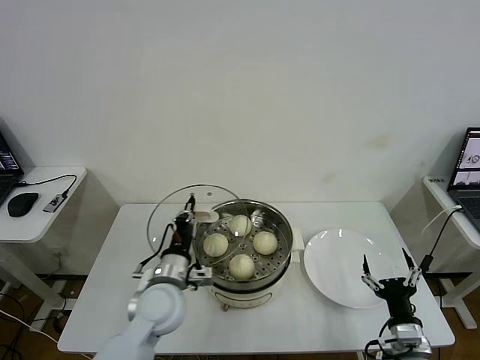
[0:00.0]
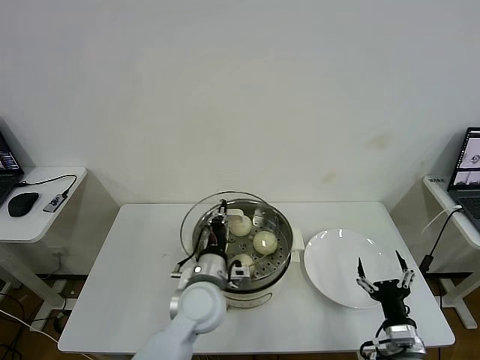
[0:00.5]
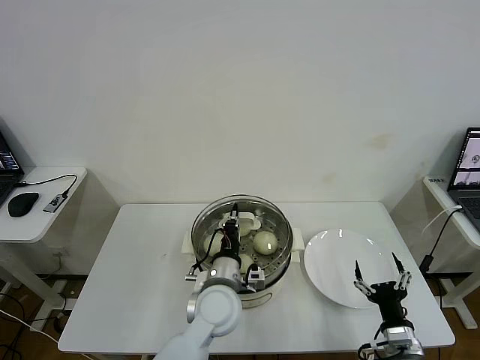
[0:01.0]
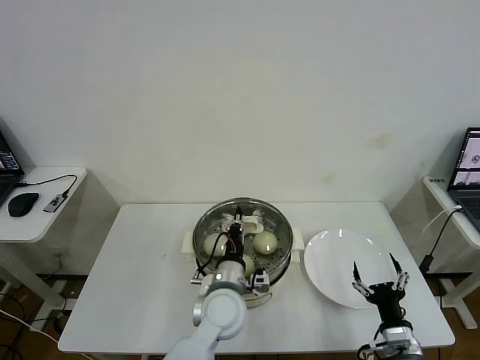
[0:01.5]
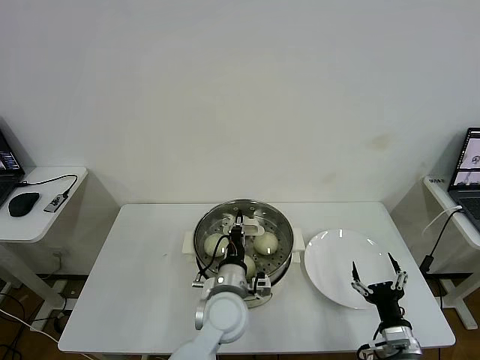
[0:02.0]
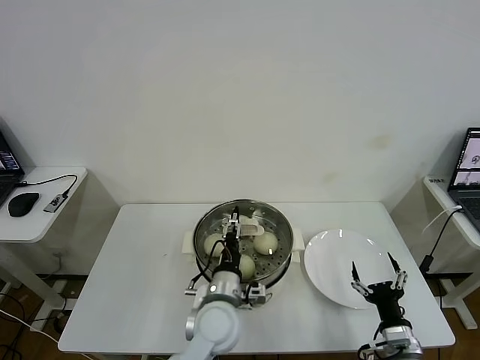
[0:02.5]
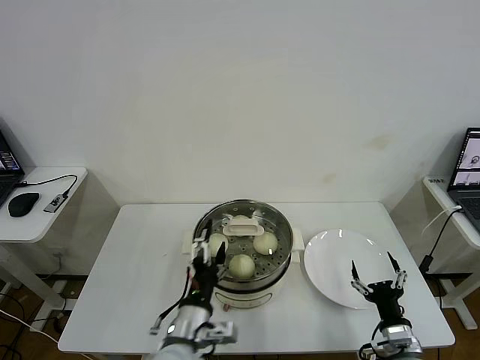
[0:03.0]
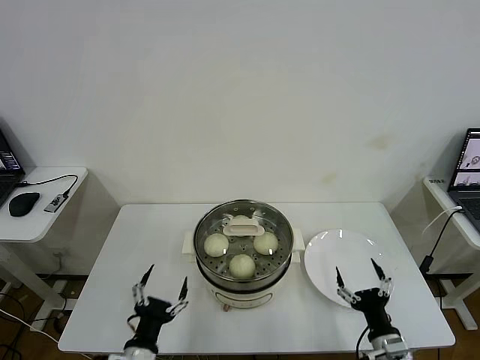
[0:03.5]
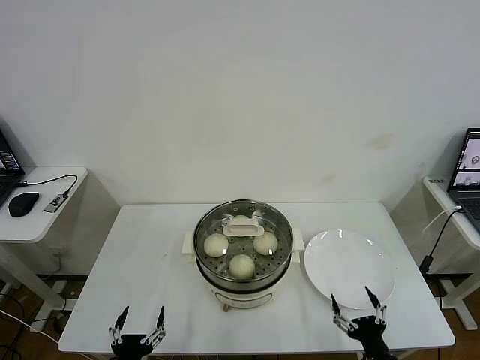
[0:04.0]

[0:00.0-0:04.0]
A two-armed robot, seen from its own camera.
Task of the whole recording: take steamed baozi put them in steamer then cover it.
Step, 0:00.0 to 0:03.0: Place the pot lid on the steamer with left gripper.
0:00.0 to 0:02.0: The left gripper is displaced to the right by approximately 15 cm.
0:02.0 to 0:04.0: The left gripper heads to the left and backward, covering about 30 cm, and opens. Meanwhile the right gripper travels backward by about 5 cm.
